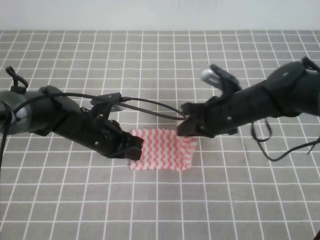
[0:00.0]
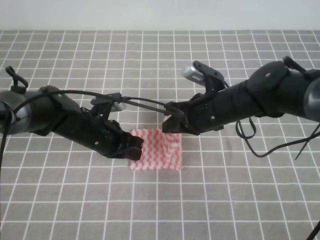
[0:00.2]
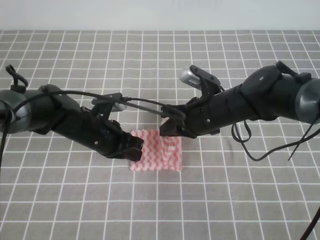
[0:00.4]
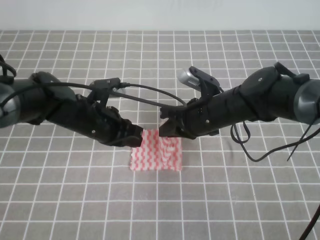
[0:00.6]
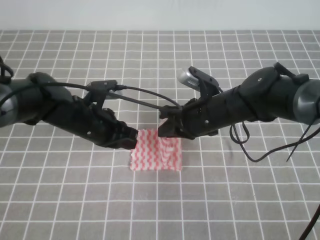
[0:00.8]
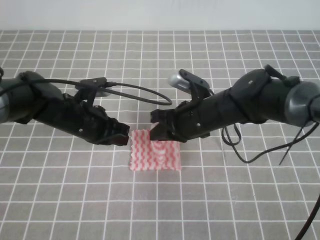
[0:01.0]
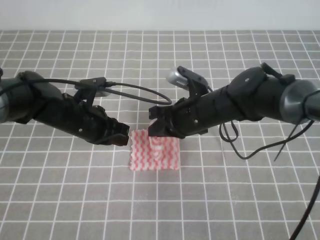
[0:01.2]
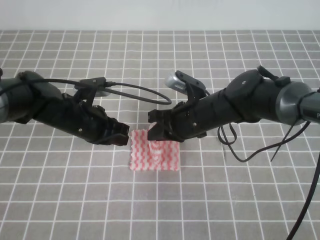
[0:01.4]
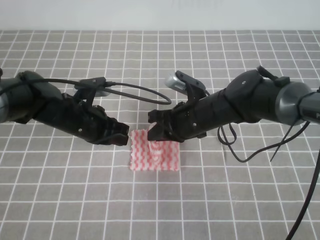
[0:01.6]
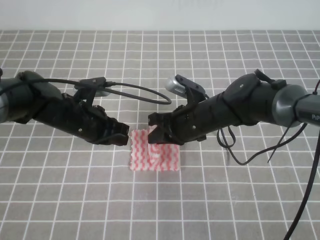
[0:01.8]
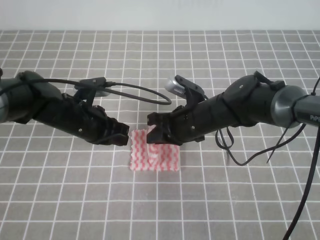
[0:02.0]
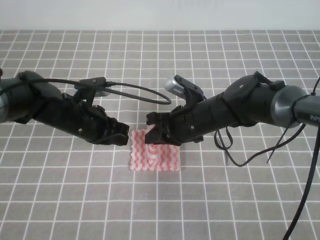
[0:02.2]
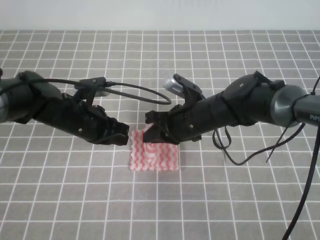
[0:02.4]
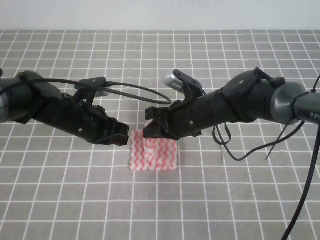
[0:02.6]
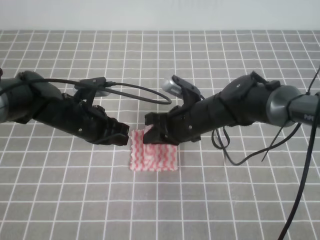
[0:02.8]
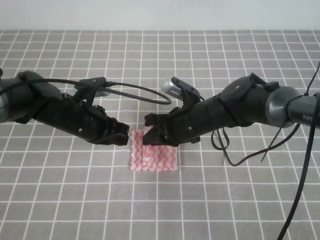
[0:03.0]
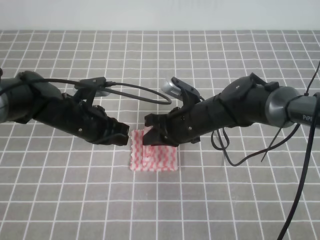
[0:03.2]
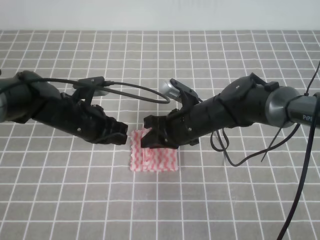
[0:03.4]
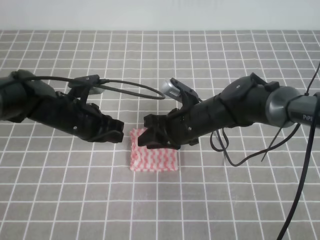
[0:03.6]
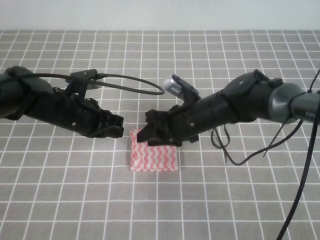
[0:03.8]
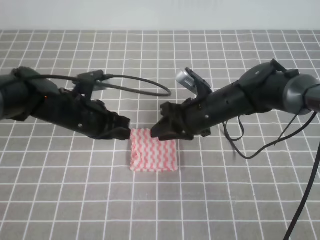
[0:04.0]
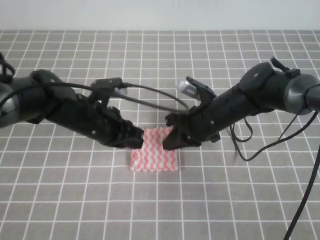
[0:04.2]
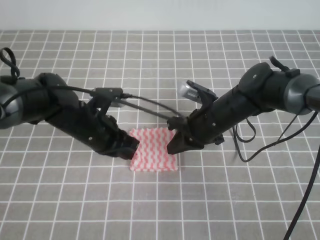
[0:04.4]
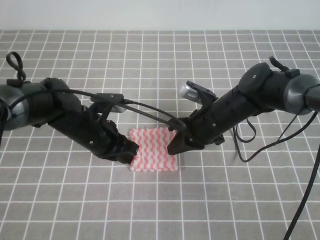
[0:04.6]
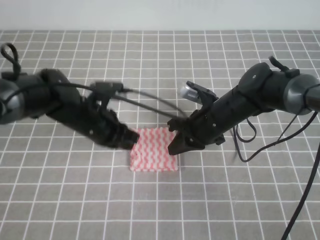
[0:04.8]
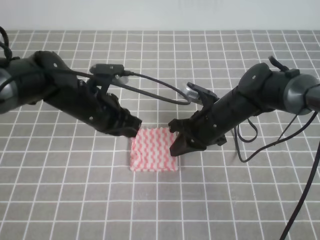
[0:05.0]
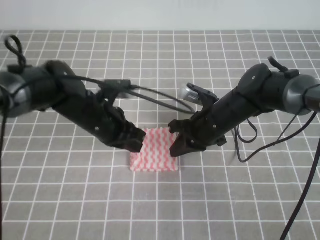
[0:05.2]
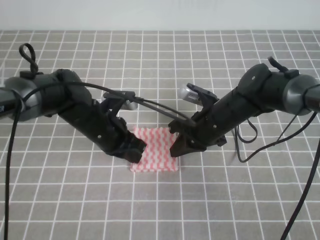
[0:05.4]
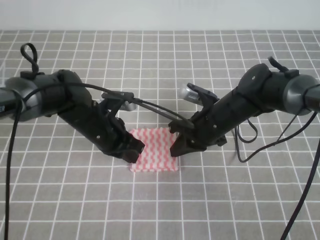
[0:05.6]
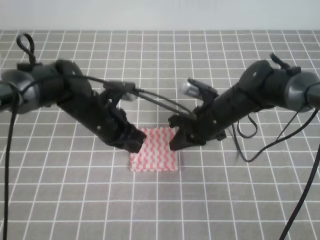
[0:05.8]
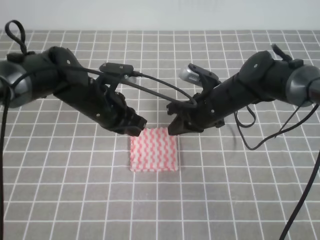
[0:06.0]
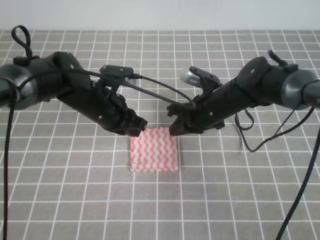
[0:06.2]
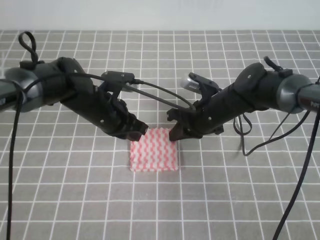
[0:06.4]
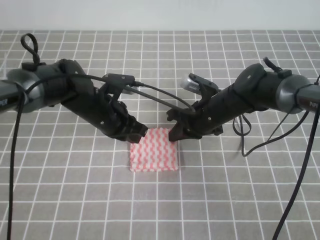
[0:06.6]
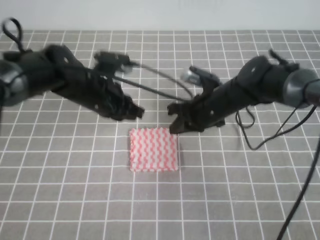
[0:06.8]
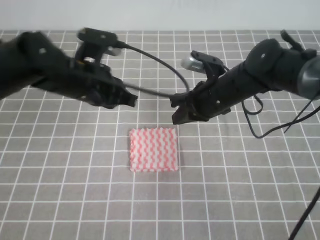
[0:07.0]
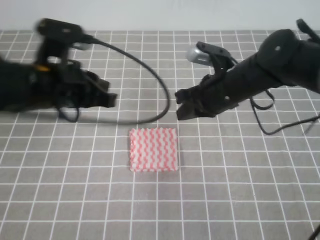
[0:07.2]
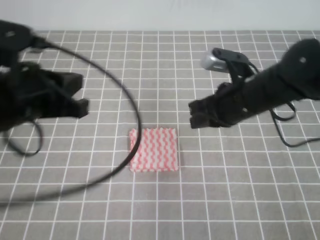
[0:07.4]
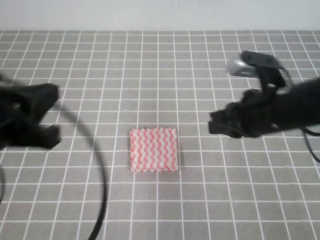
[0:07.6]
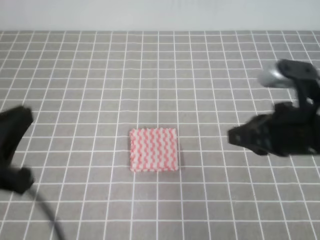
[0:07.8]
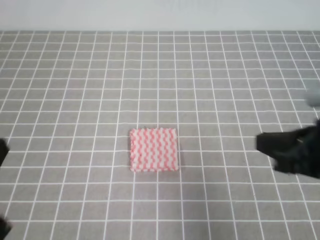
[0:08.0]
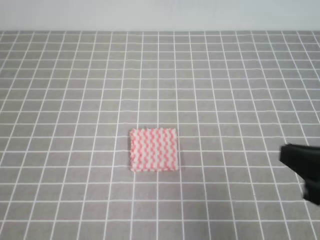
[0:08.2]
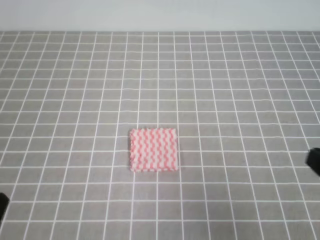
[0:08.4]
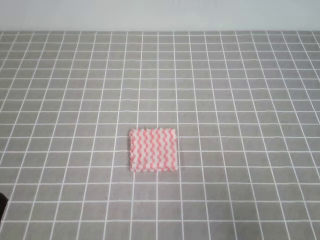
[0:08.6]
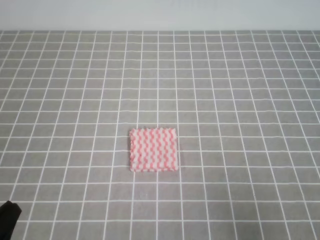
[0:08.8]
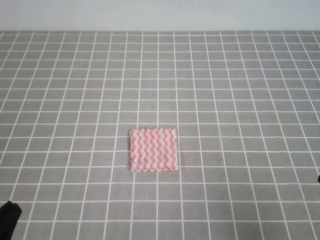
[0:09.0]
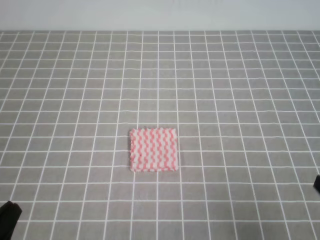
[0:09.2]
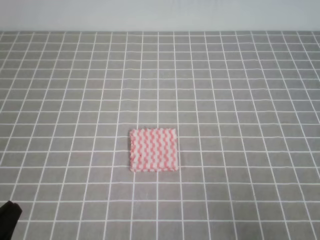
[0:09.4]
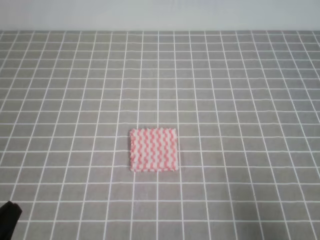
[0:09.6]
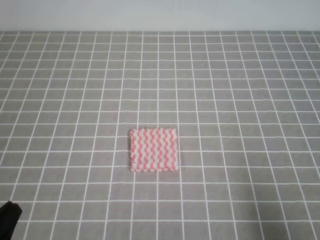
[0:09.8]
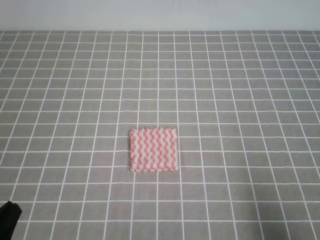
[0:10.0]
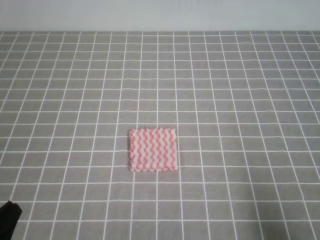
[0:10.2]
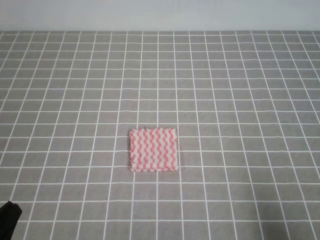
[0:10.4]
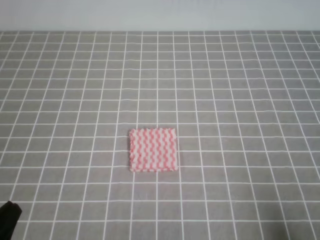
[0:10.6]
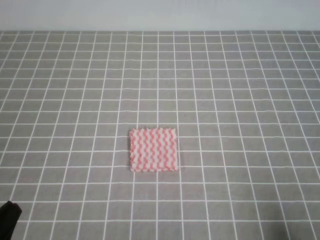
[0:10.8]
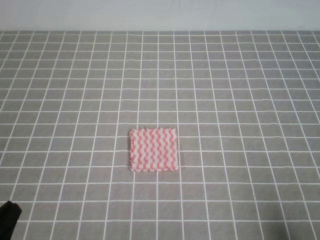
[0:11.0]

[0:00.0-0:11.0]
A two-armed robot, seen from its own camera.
0:00.0 to 0:01.6: The right gripper goes roughly 5 cm to the left.
0:01.6 to 0:03.2: The grippers move only a little.
0:03.2 to 0:04.8: The right gripper opens, then closes once more.
0:06.2 to 0:07.8: The left gripper heads backward, upward and to the left, covering roughly 30 cm, while the right gripper is displaced backward, upward and to the right by approximately 25 cm.
0:07.8 to 0:09.4: The right gripper goes approximately 15 cm backward and to the right, while the left gripper goes some 15 cm downward and backward.
0:09.4 to 0:11.0: The right gripper moves downward, roughly 5 cm.

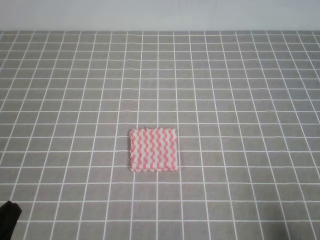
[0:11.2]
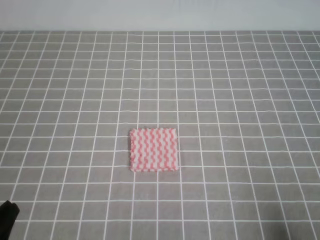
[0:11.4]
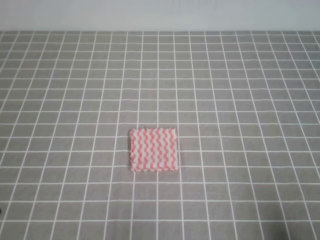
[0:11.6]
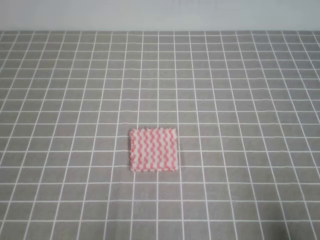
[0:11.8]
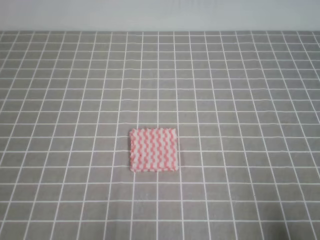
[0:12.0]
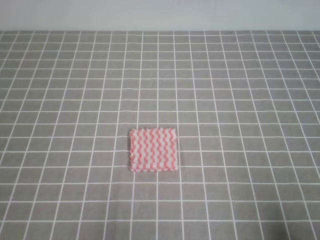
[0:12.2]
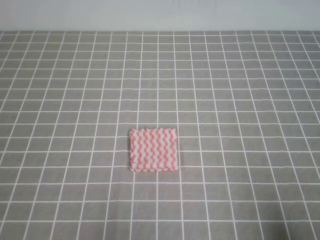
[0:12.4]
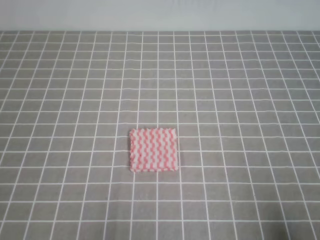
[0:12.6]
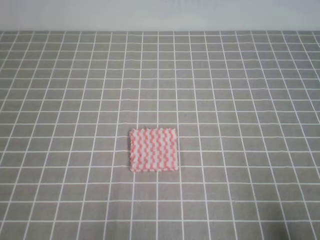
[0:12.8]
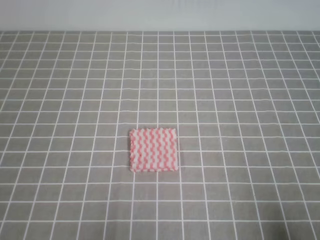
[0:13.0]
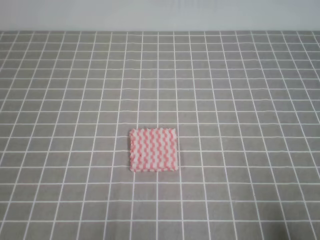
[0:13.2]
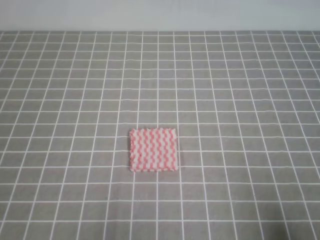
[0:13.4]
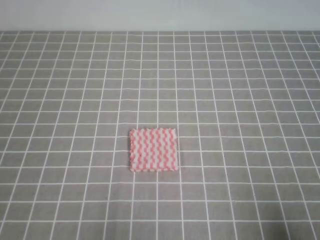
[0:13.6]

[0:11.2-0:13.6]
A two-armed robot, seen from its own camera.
0:12.4 to 0:13.6: The two grippers keep their place.
